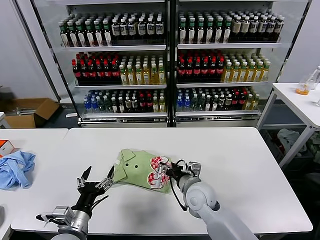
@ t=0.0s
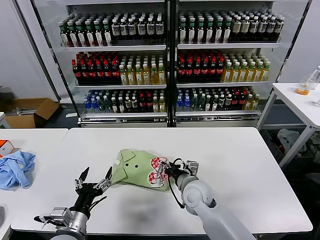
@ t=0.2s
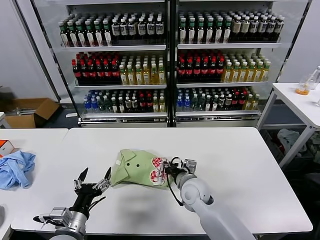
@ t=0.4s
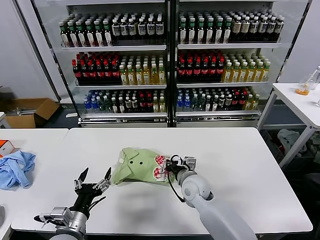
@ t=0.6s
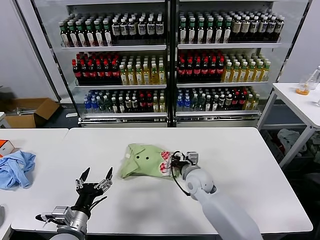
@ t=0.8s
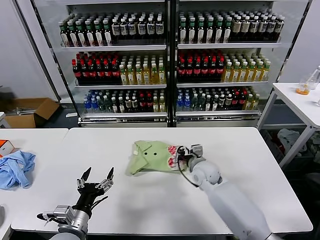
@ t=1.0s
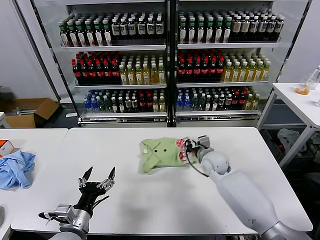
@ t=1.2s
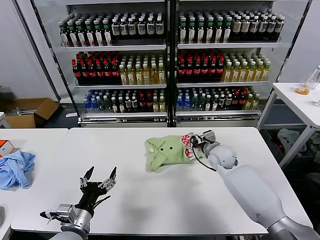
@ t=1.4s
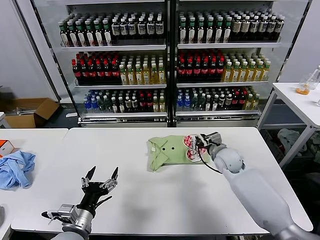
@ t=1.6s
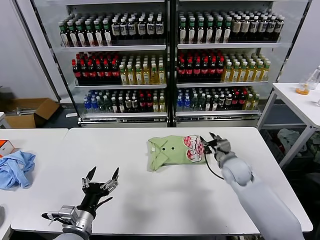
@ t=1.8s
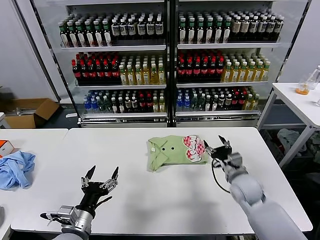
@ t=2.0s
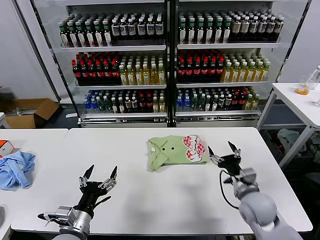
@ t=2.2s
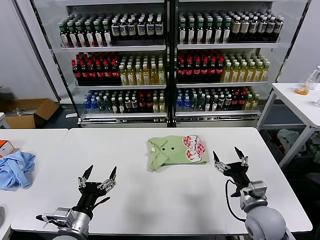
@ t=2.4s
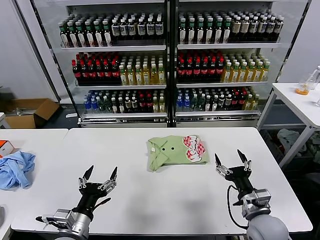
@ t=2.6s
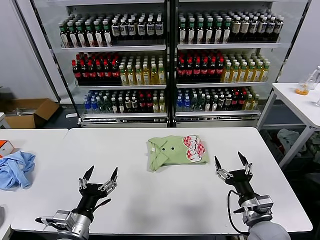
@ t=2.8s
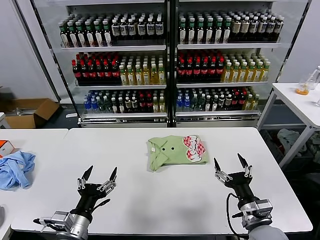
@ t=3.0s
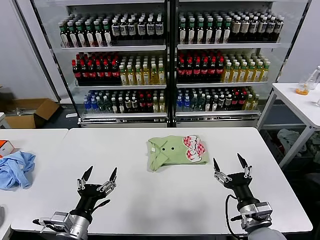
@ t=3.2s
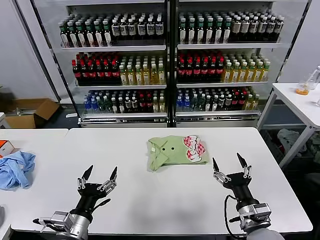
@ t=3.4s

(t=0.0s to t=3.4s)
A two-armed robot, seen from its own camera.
Task of the whole recording: fold and organize the clothes.
Step, t=0.0s - t=1.6s: Drag the clothes to the center of the table.
t=0.0s - t=1.6s: The right gripper is displaced forward and to the right by about 20 cm, and closes its fingers.
t=1.6s - t=3.4s: The right gripper goes about 30 cm backward, and opens its fingers.
